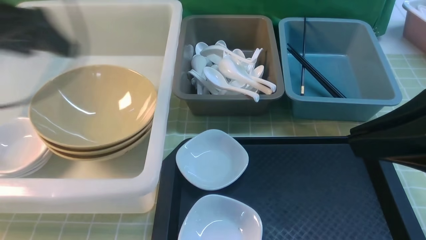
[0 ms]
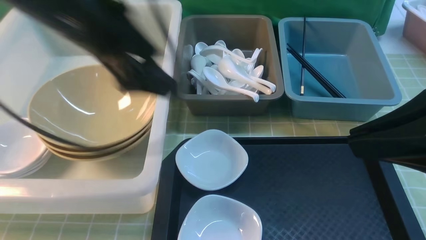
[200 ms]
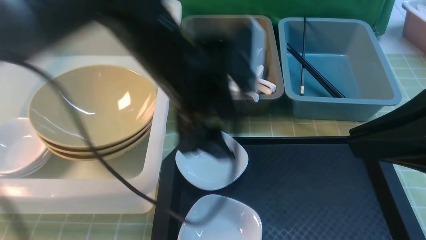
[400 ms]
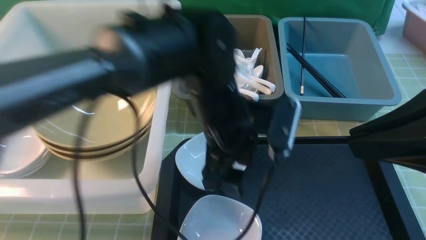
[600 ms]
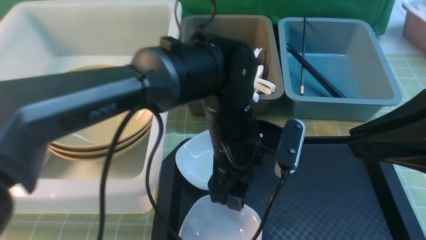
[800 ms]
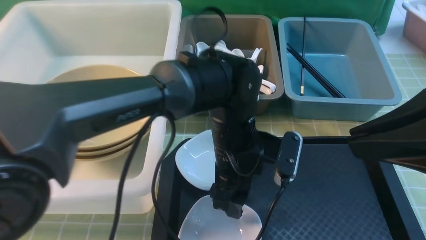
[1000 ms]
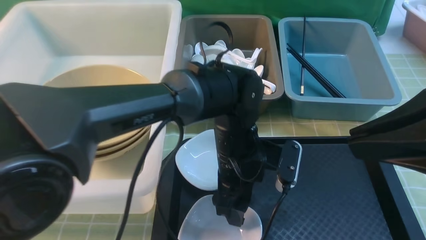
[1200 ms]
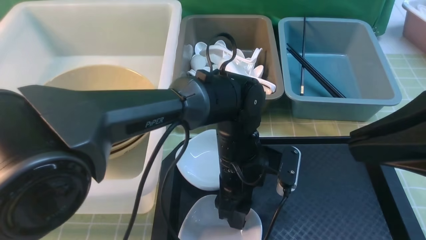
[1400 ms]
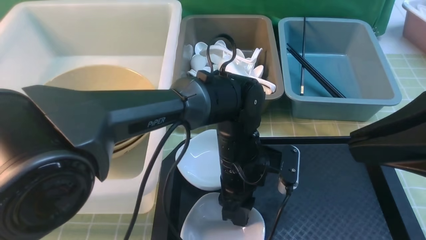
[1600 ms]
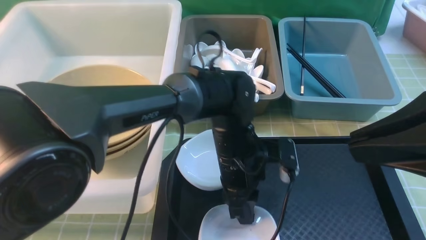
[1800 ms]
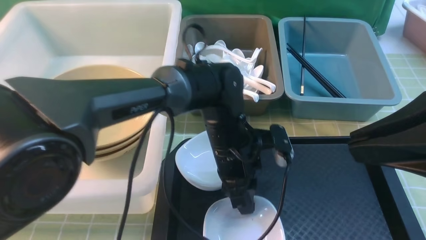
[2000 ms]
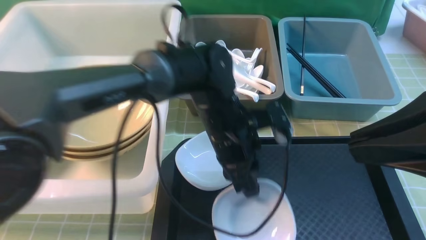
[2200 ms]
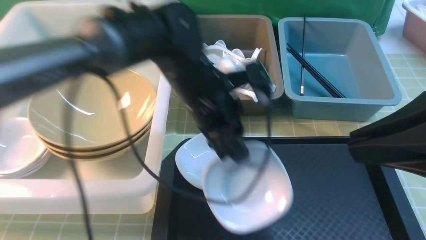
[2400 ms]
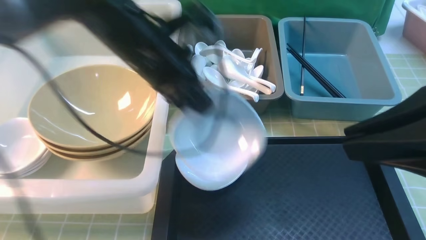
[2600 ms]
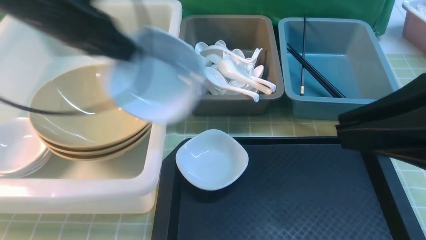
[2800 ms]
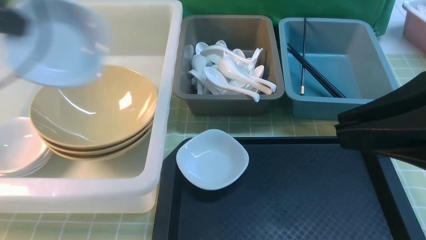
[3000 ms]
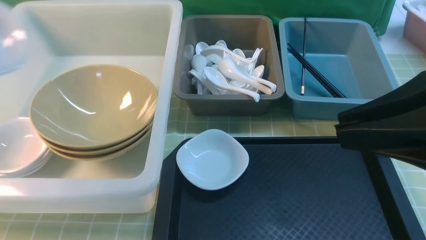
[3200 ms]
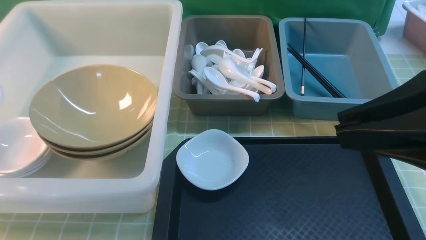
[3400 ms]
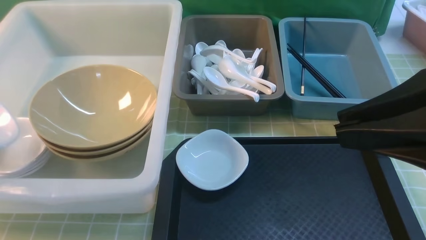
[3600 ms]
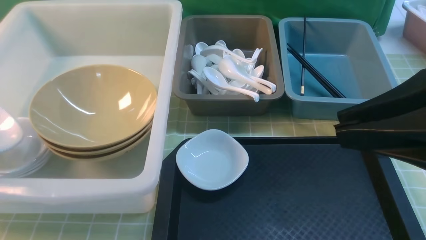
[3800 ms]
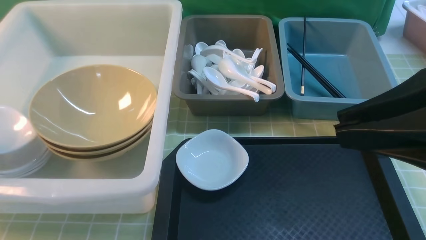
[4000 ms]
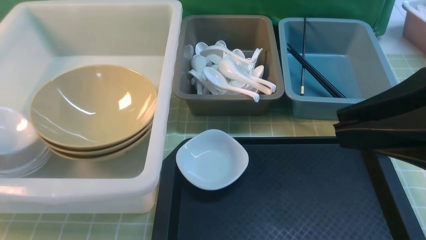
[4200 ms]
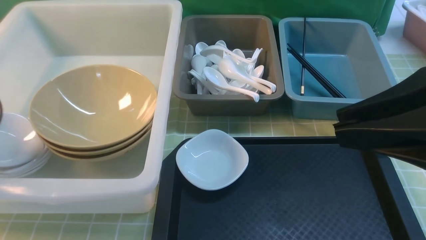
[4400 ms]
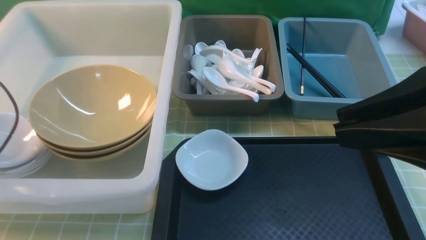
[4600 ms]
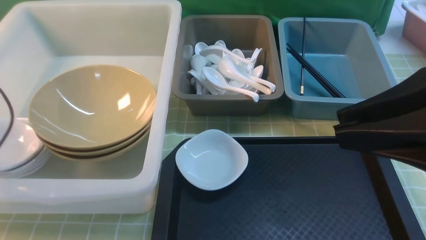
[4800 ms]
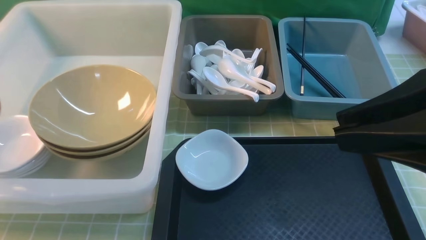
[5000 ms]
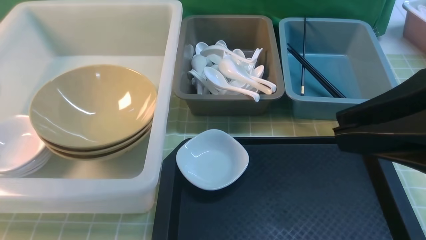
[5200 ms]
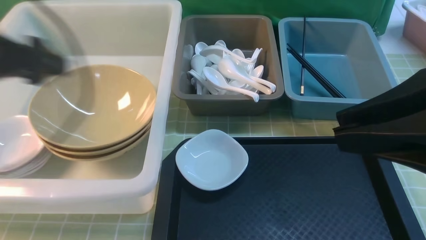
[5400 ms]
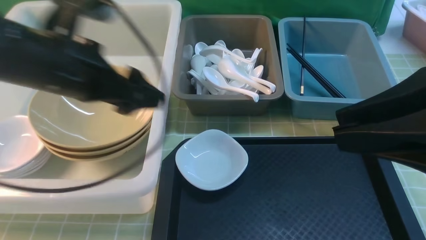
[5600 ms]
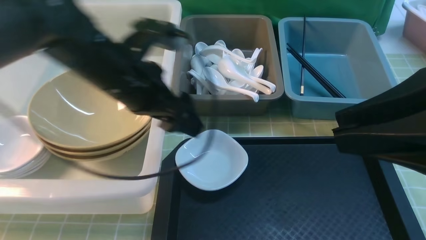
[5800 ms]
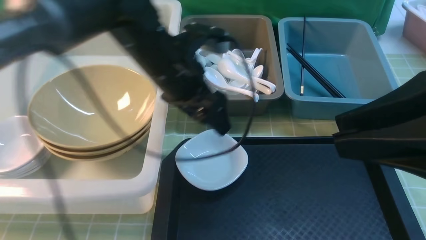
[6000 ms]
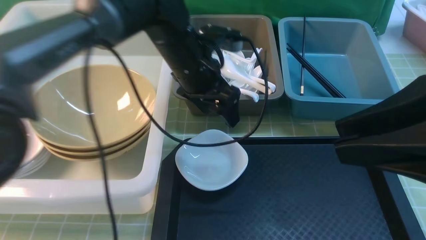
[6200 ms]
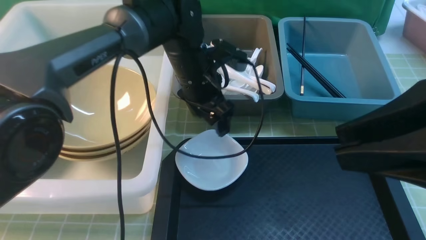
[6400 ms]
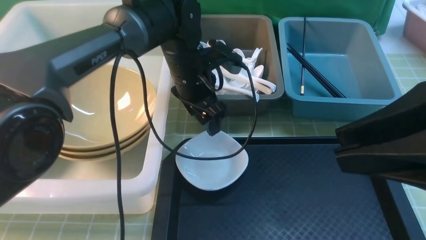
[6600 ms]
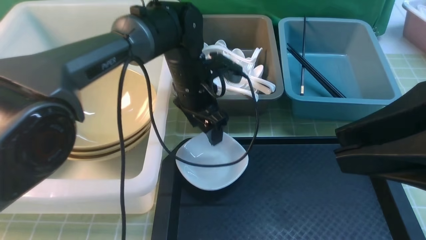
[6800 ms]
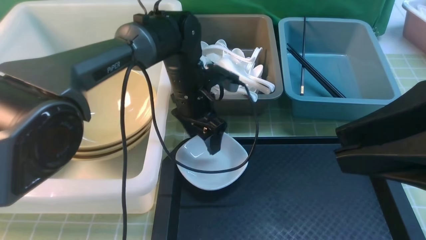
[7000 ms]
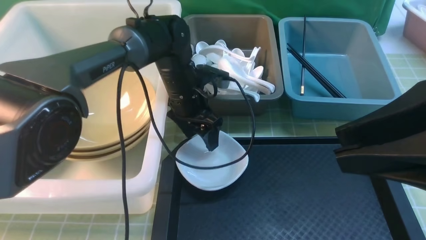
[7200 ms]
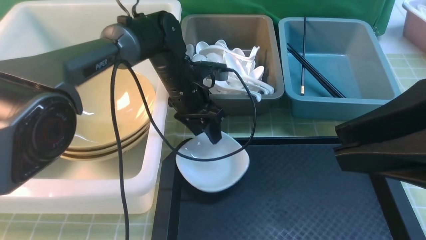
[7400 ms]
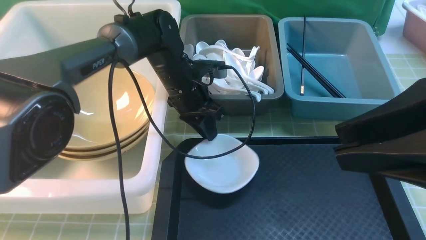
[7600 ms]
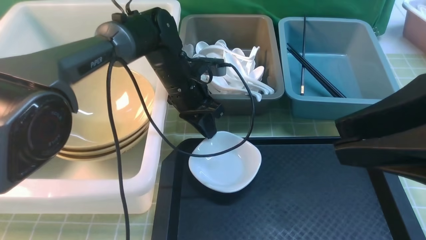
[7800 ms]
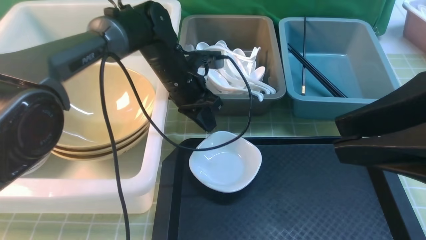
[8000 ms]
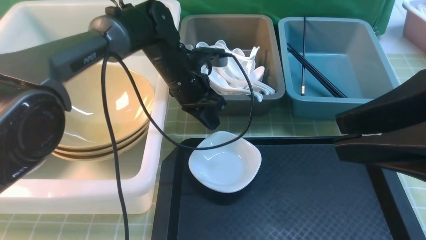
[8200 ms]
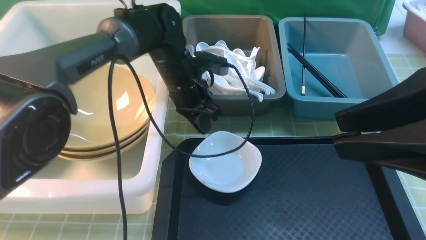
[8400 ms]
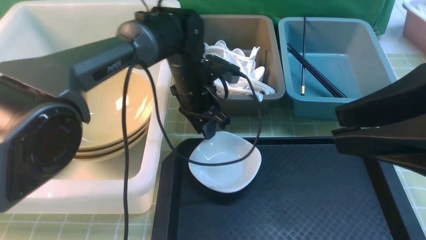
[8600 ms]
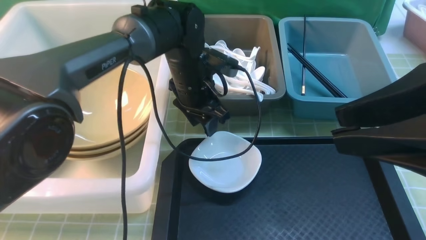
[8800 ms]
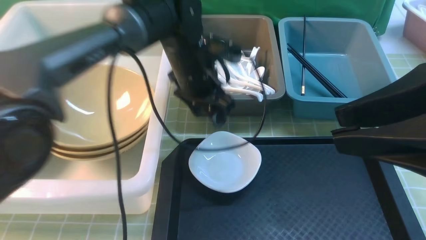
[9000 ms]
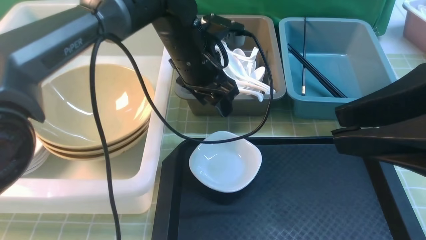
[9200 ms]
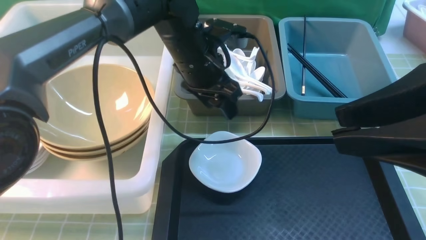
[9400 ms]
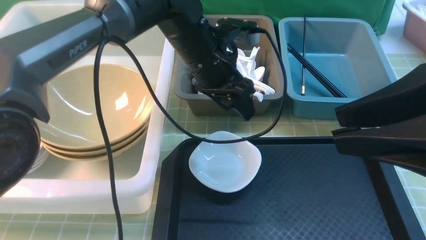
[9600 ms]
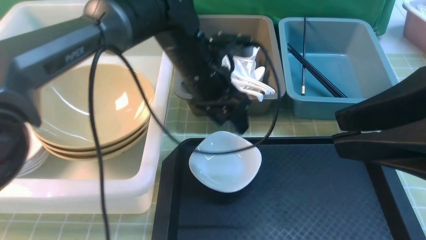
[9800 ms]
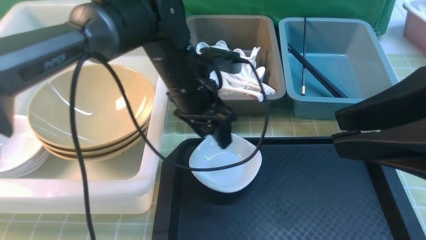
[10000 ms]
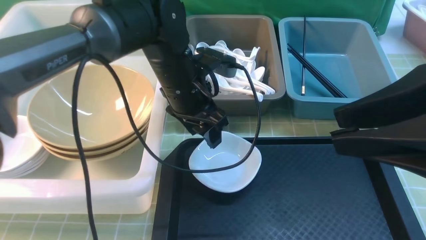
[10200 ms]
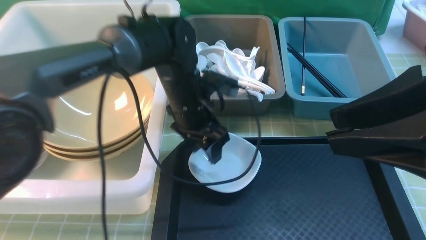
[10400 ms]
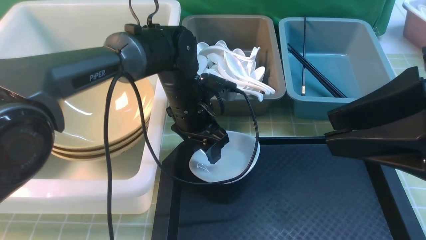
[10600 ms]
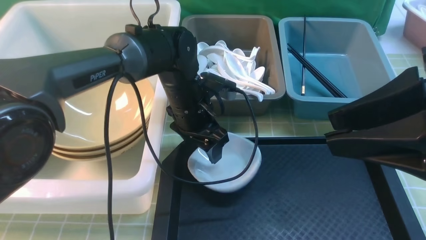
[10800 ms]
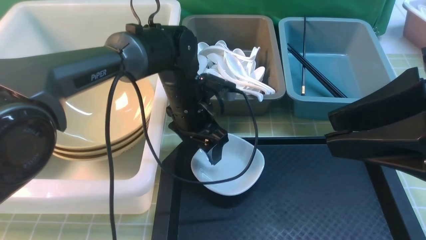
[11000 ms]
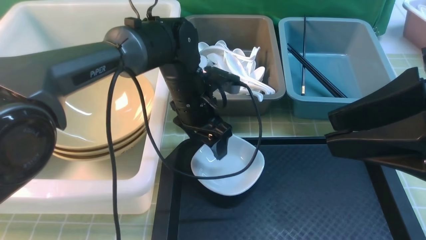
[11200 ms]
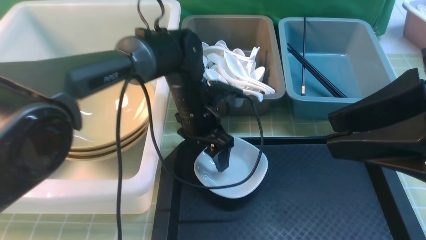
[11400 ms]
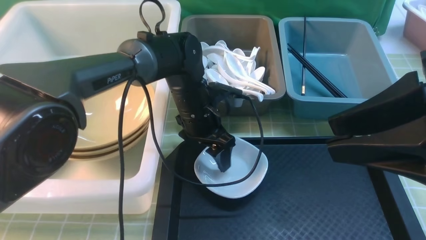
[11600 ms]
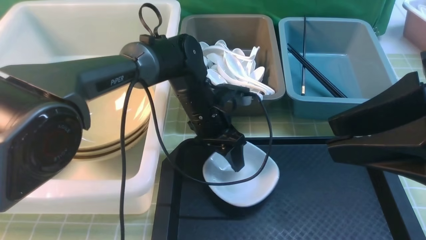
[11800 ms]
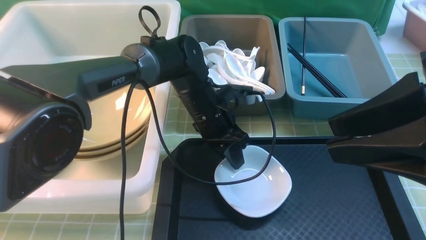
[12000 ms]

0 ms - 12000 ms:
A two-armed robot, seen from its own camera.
Task of the whole recording: on green table put chopsticks spoon bowls plates into blue grey white boxes.
Step, 0 ms - 2000 ms: use the left arm to grab the plate.
Step, 2200 ms - 5000 ms: use the left arm to put the plate into the large storage box on the left.
0 ms - 1600 ms: The left gripper heads to the right and downward, covering some 35 cm, and closes up.
1600 ms - 3000 ms: The left gripper goes roughly 40 cm to the left and upward.
3000 ms - 4400 ms: The left gripper is displaced downward and to the left by about 20 cm, and opens.
4400 ms - 6000 ms: The left gripper goes about 35 cm to the right, and opens up.
6000 ms - 7600 ms: The left gripper is displaced downward and forward by some 10 cm, and closes up.
7600 ms - 9000 ms: The left gripper travels upward by some 5 cm, and opens its fingers.
9000 ms - 10400 ms: The left gripper changes place by about 5 cm.
10400 ms - 12000 ms: The left gripper closes its fingers.

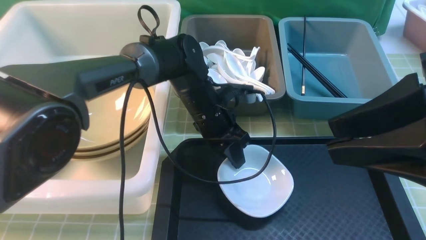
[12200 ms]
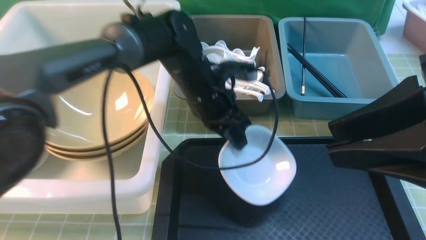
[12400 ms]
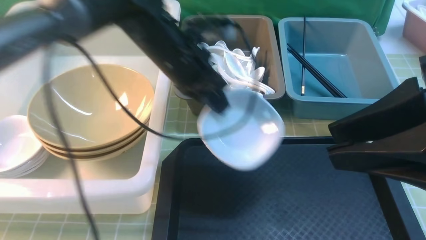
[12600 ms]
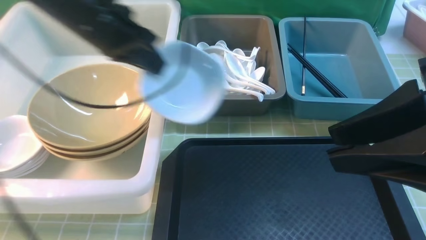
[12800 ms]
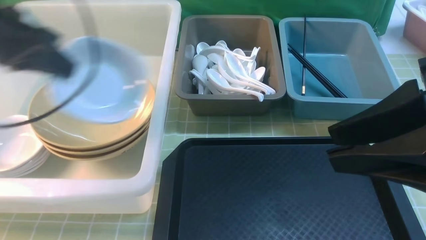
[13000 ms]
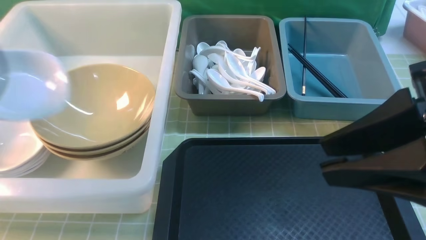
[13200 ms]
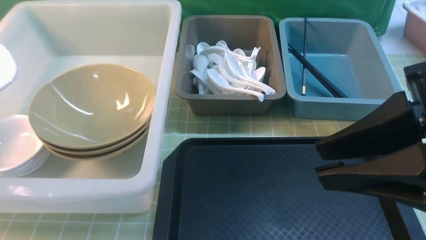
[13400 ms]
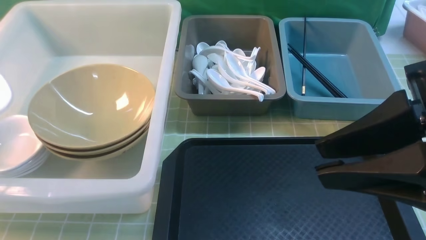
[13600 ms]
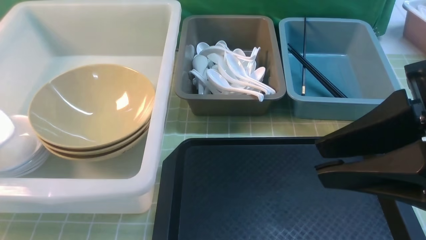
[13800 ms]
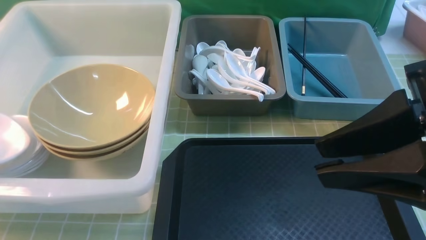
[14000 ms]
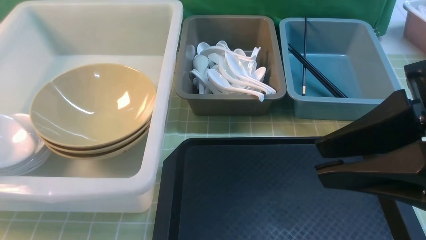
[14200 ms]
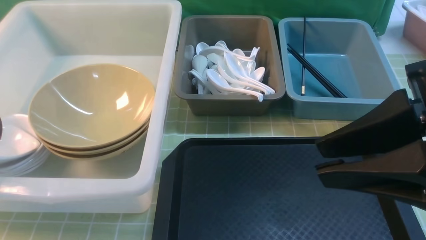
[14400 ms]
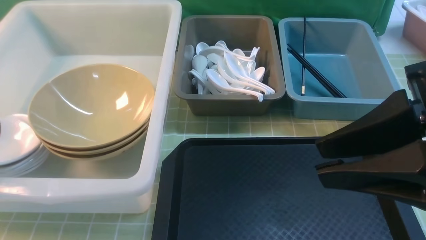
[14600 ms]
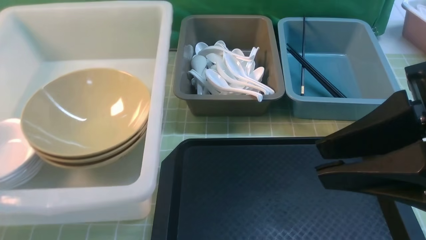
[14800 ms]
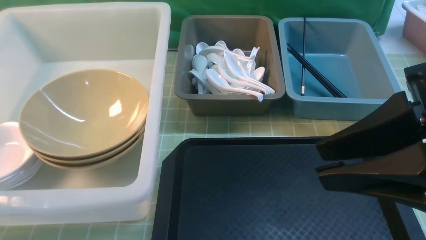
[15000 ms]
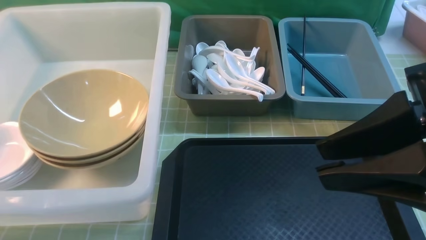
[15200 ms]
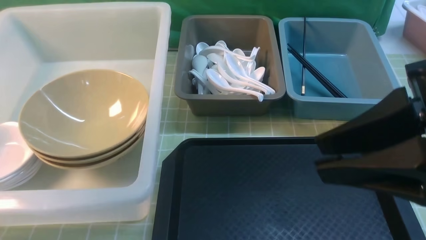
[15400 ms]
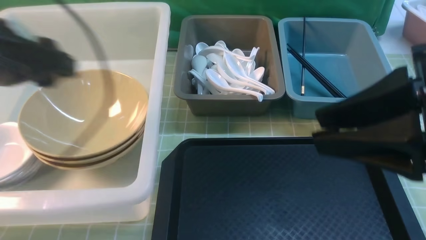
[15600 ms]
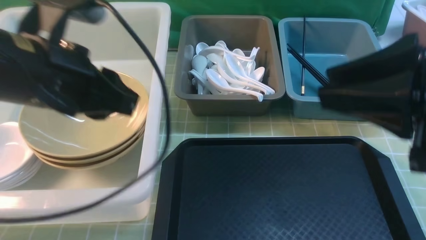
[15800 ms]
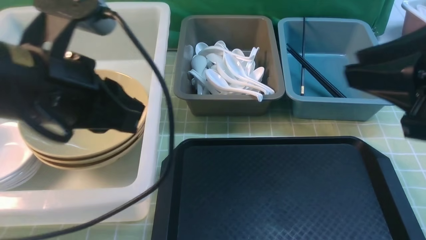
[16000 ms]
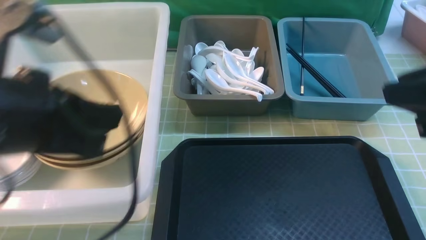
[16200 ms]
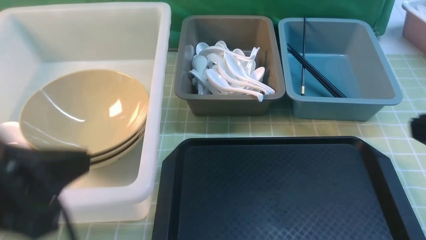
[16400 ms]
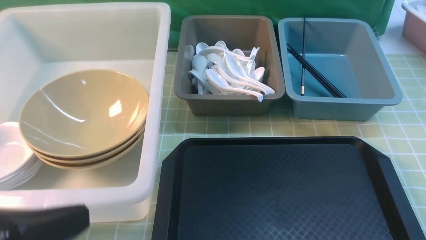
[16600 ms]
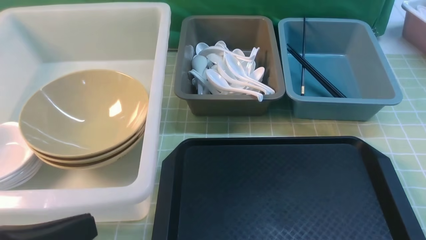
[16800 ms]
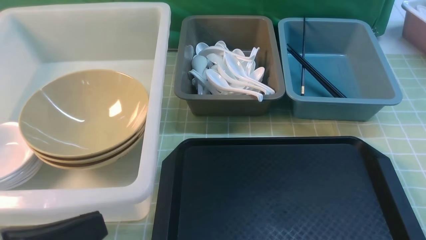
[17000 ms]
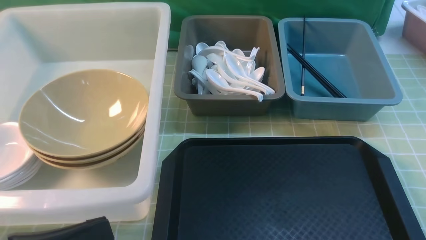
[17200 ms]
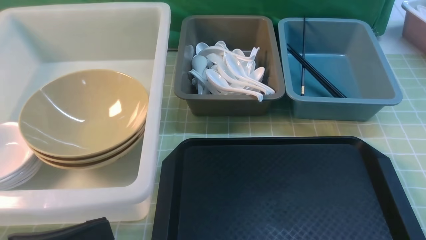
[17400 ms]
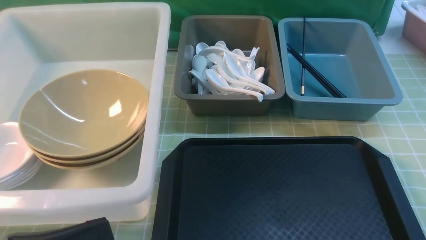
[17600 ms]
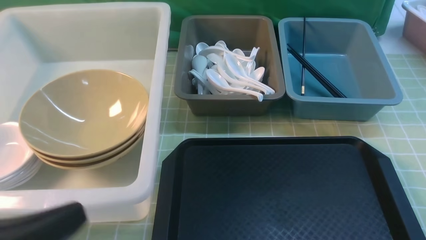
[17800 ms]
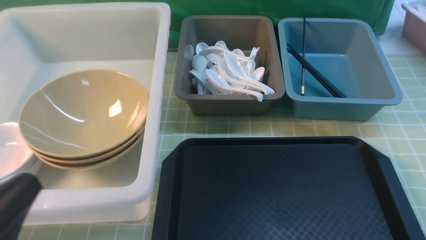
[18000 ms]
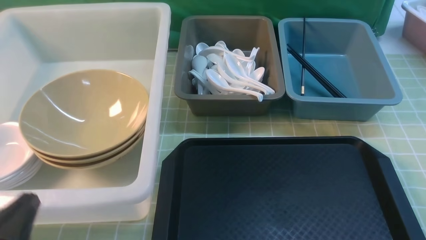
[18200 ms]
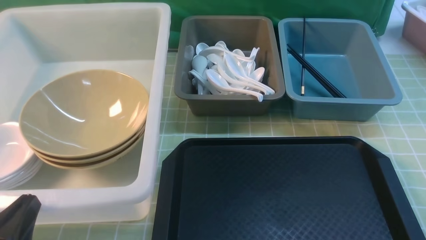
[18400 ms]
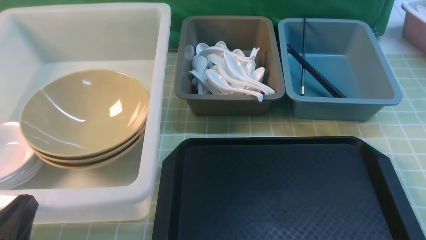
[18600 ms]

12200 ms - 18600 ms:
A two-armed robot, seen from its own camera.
Task of the whole recording: on green table put chopsticks spoon bowls plates into blue grey white boxes.
Step, 12600 ms - 15200 ms: use the left arm to put the plate into the large storage box on the left.
12200 ms - 13800 ms: The left gripper travels to the left by approximately 40 cm.
13800 ms - 15400 ms: The left gripper shifts approximately 15 cm to the right and upward, and opens up.
15400 ms - 17000 ms: The left gripper goes roughly 25 cm backward and to the right, and closes. The right gripper goes some 20 cm downward, to the right and backward, and closes up.
17000 ms - 18600 ms: The left gripper travels downward by approximately 10 cm.
